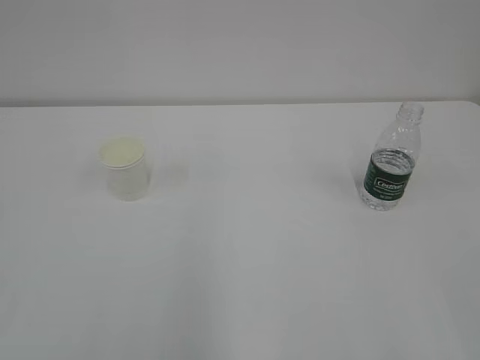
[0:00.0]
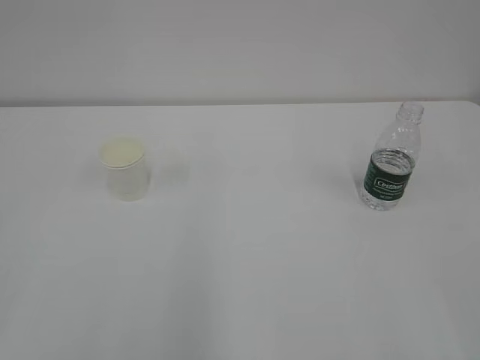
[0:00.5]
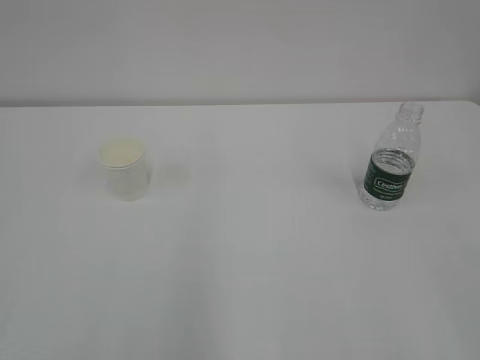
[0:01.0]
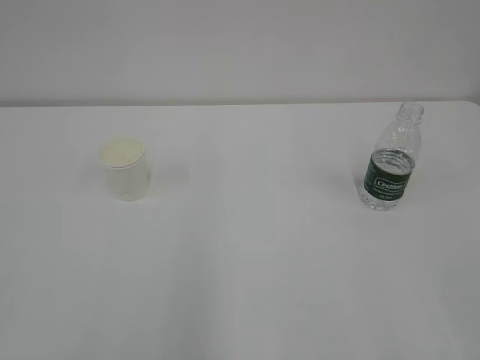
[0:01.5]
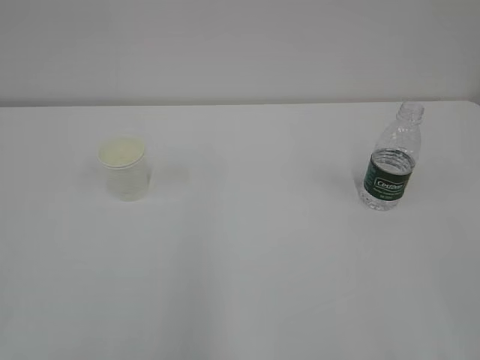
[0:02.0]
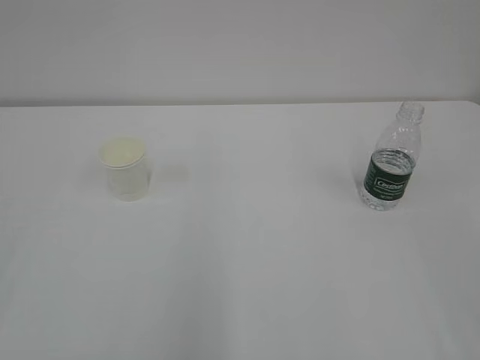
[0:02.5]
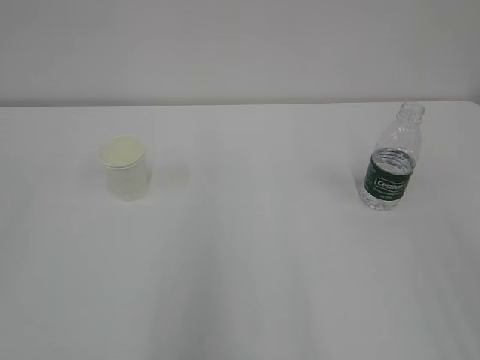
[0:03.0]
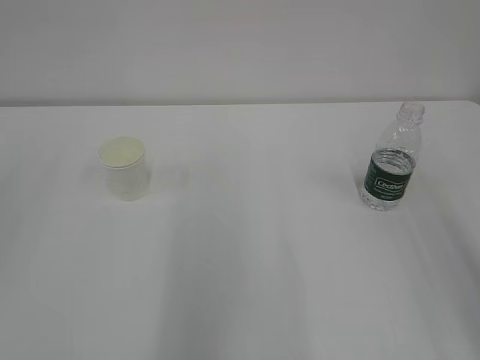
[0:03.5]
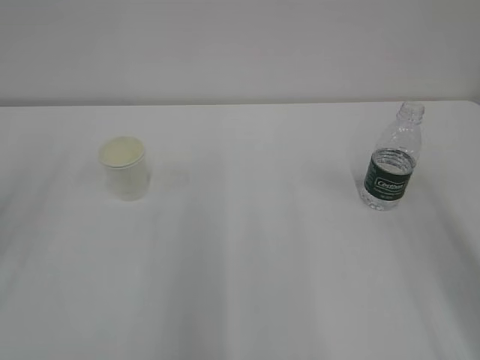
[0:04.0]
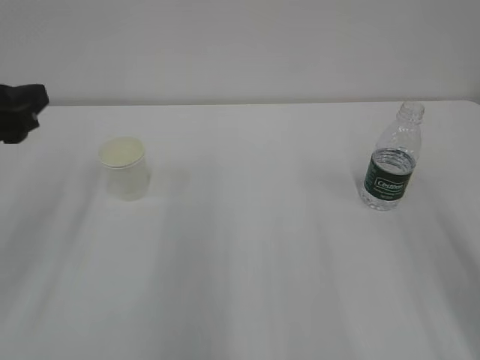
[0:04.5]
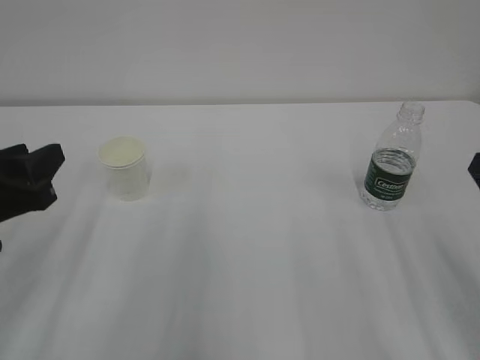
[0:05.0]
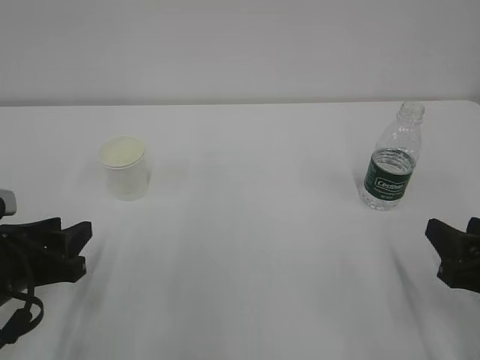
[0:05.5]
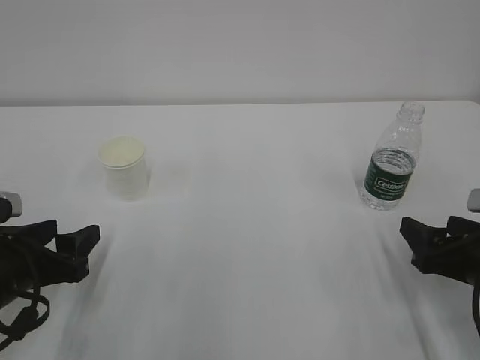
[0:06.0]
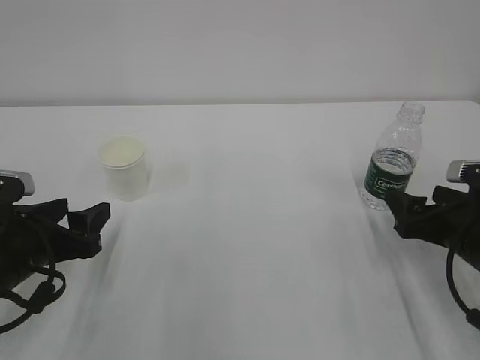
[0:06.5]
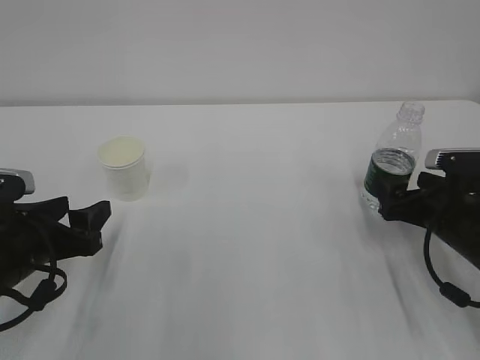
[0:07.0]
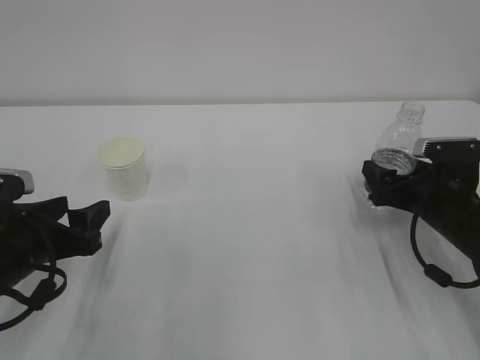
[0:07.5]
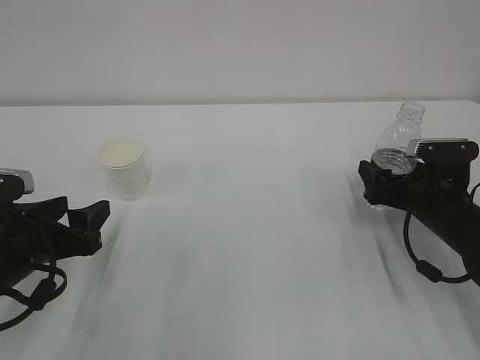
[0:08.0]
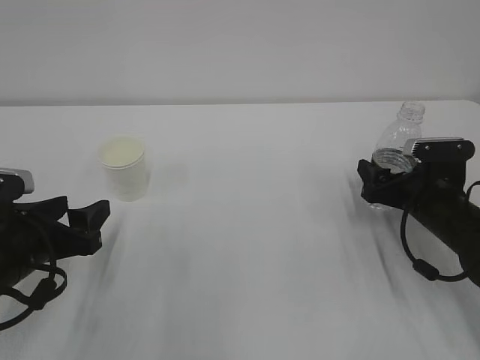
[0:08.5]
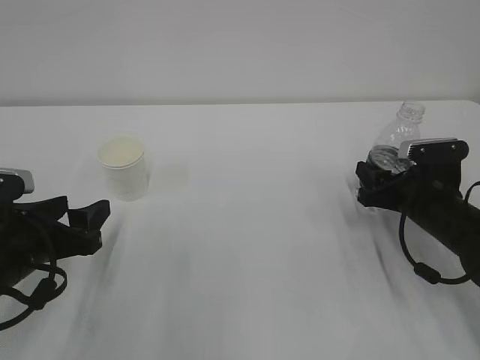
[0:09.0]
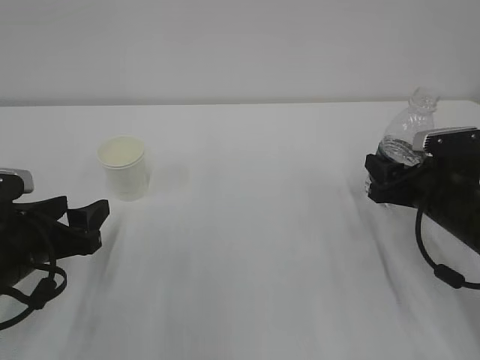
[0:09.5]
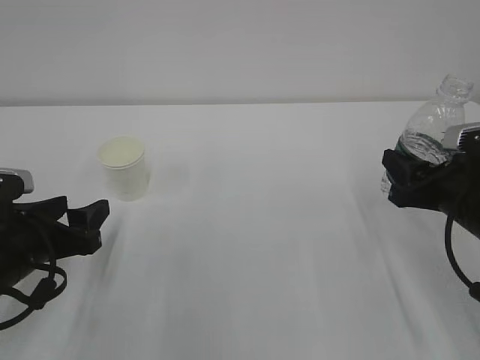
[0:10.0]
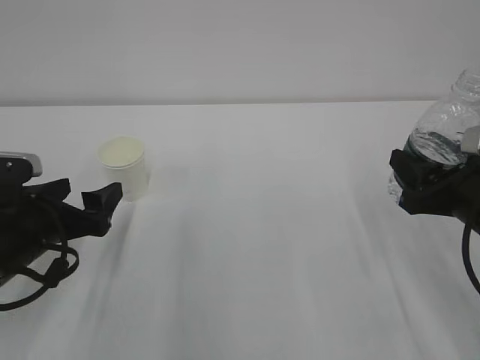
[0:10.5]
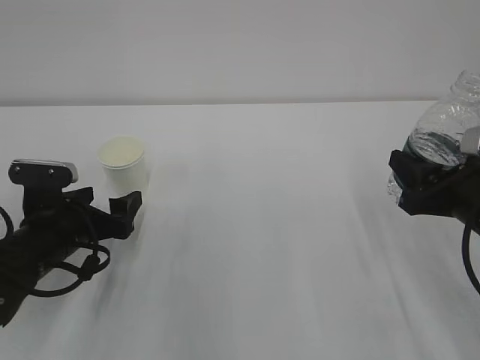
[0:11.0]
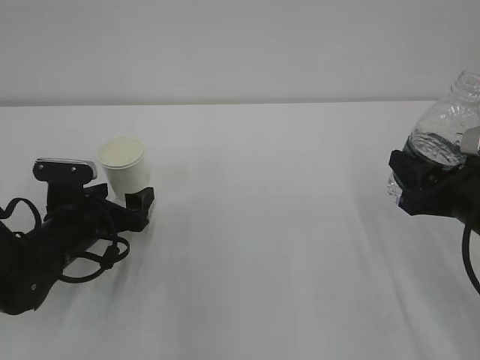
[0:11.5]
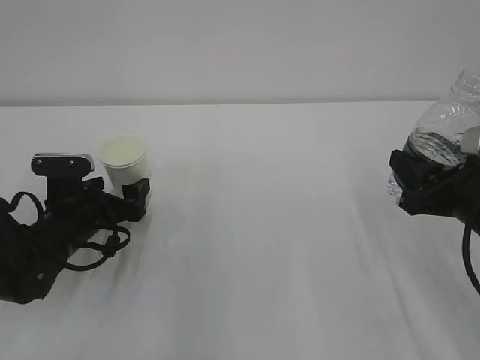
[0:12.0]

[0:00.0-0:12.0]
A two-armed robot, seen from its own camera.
0:04.0 to 0:06.0: The grippers both shift downward by approximately 20 cm. The right gripper opens up.
0:06.0 to 0:08.0: The right gripper travels forward by roughly 10 cm.
0:08.0 to 0:10.0: The right gripper is displaced upward and backward by about 10 cm, and closes up.
0:10.0 to 0:12.0: The left gripper heads forward and downward, covering some 10 cm, and opens.

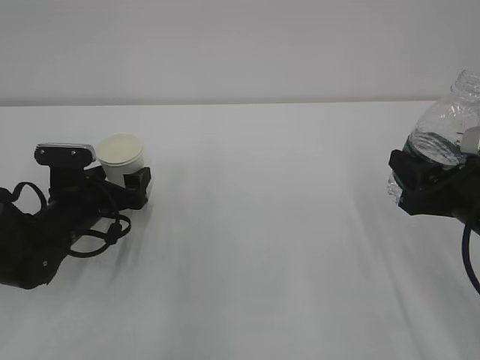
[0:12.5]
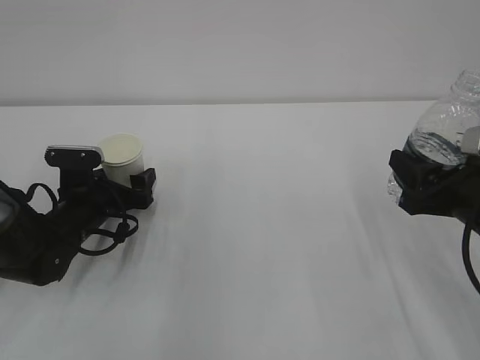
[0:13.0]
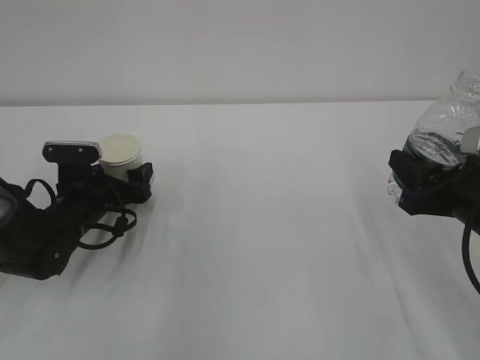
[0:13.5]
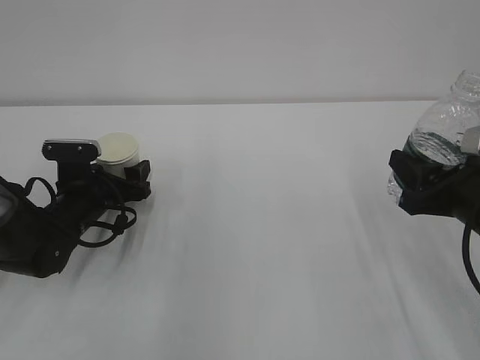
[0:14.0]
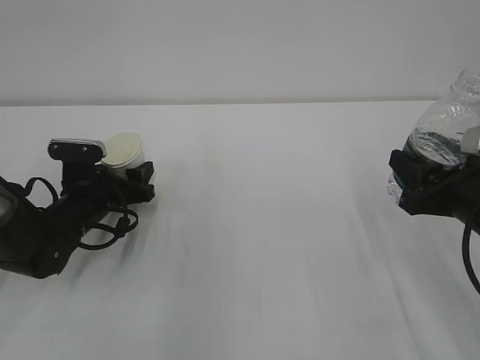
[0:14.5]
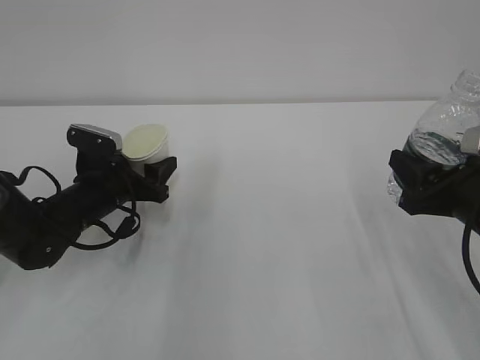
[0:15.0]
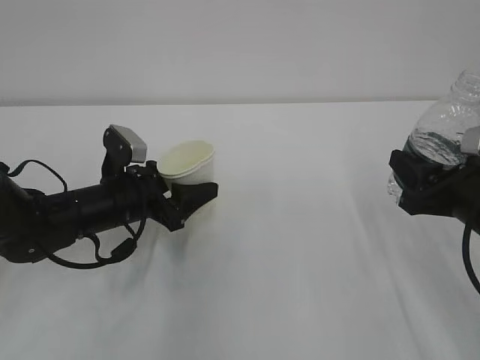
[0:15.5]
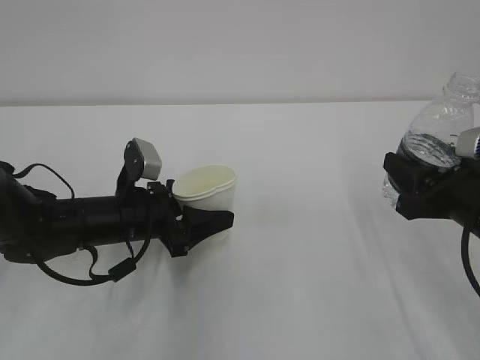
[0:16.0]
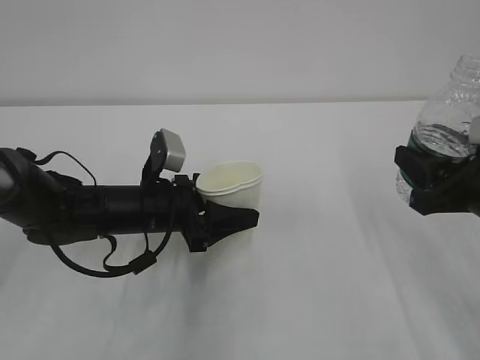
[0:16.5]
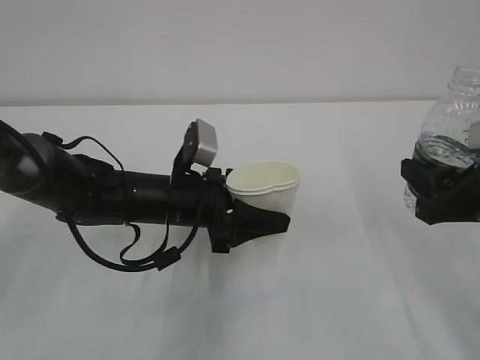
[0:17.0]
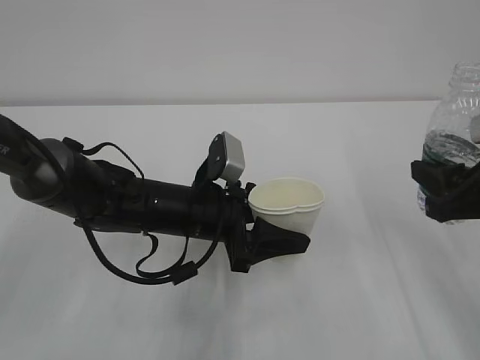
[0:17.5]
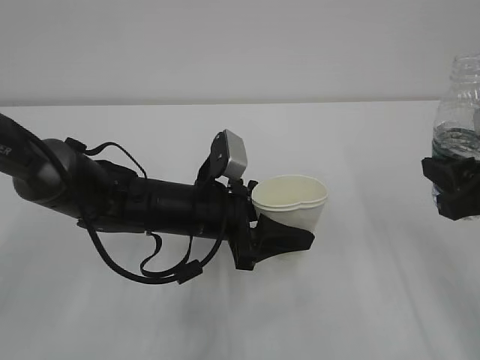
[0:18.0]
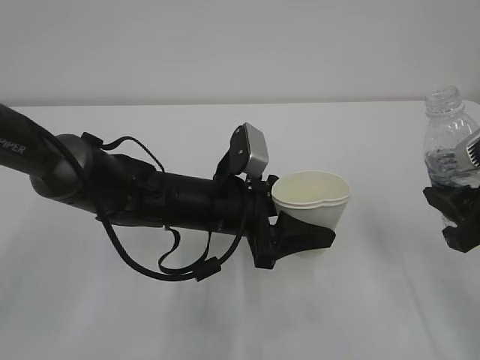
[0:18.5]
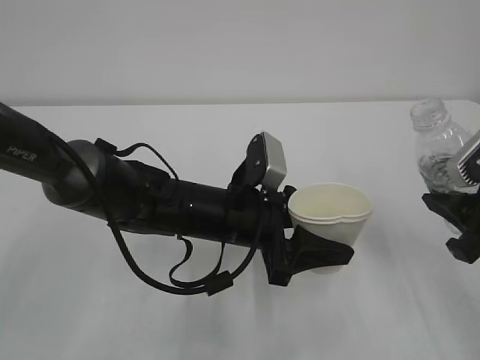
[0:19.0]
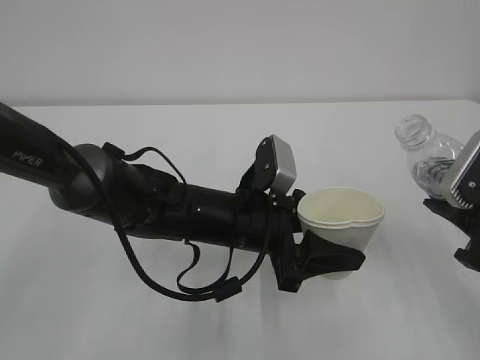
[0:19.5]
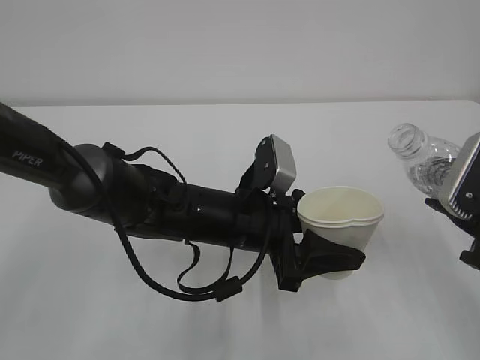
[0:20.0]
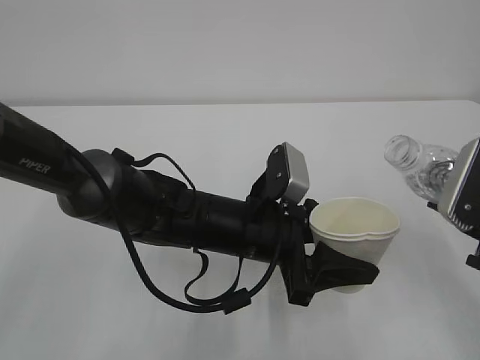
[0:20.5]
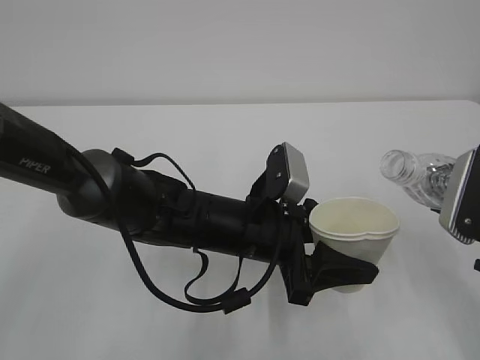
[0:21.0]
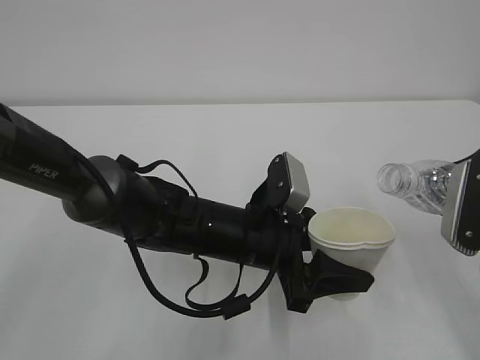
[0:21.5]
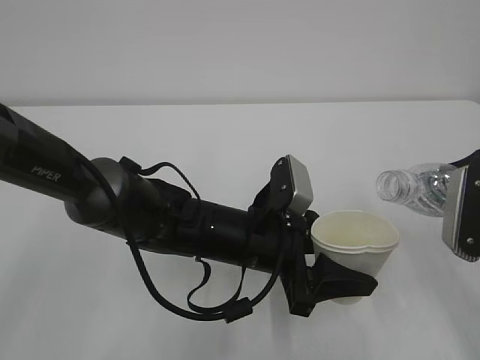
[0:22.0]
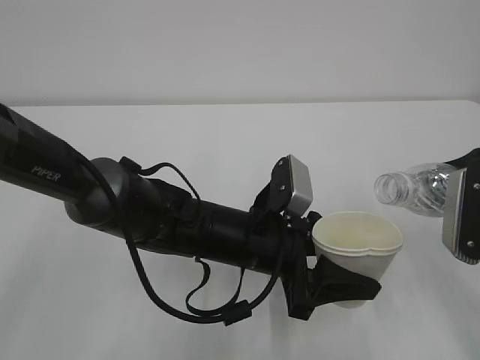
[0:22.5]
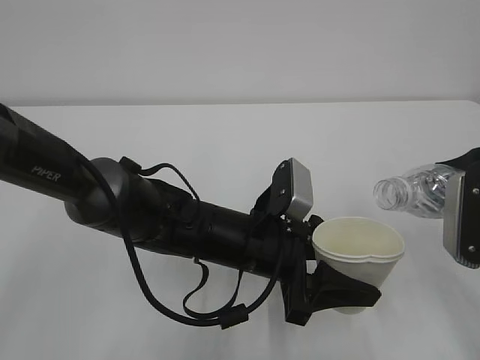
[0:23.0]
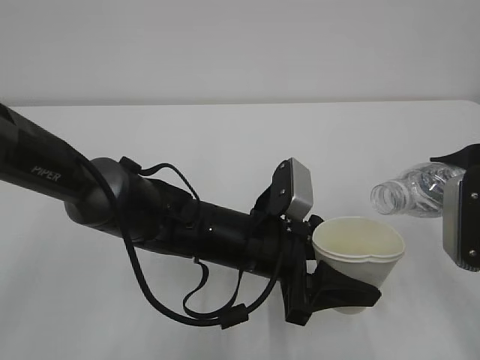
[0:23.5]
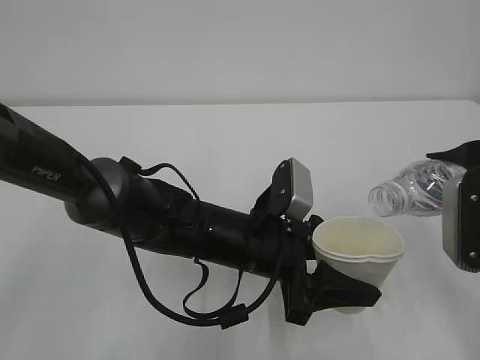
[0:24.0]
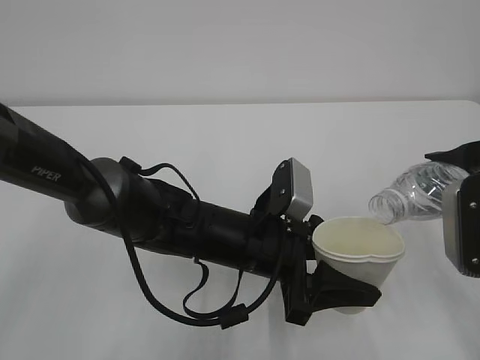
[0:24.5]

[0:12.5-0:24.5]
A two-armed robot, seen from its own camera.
0:12.5 to 0:14.5: The left gripper closes up.
0:14.5 to 0:16.5: The left gripper moves to the right, roughly 10 cm.
0:16.5 to 0:18.5: The left gripper heads to the right, covering approximately 10 cm.
0:20.5 to 0:22.5: The grippers stay close to where they were, moving slightly.
0:22.5 to 0:24.5: There are only small adjustments of the grippers.

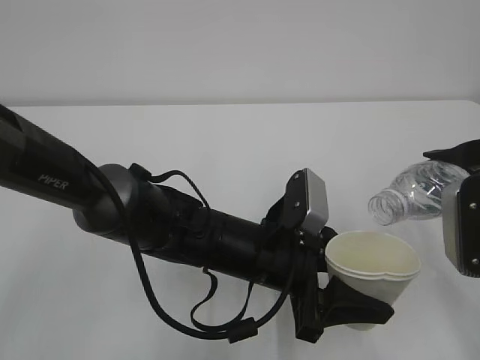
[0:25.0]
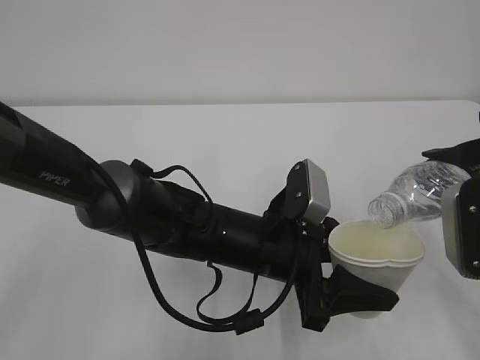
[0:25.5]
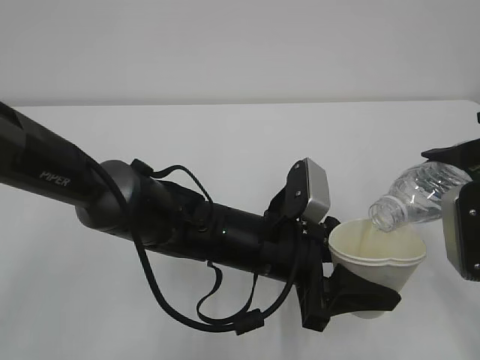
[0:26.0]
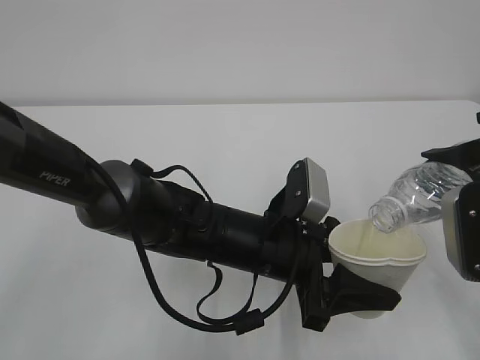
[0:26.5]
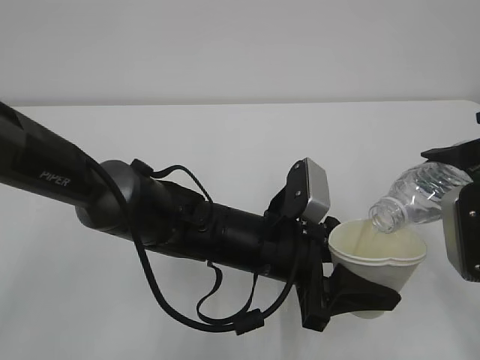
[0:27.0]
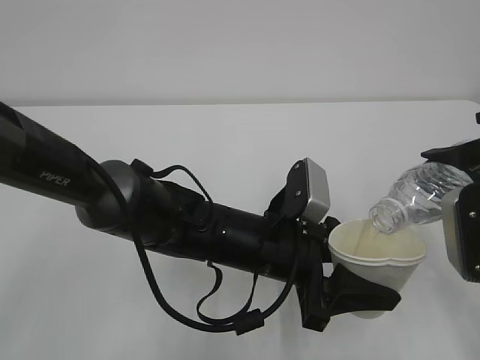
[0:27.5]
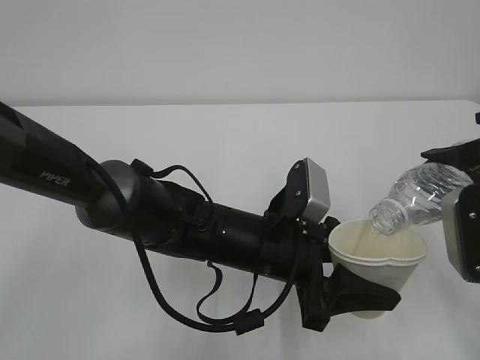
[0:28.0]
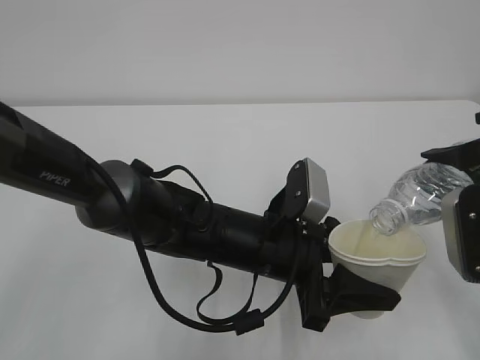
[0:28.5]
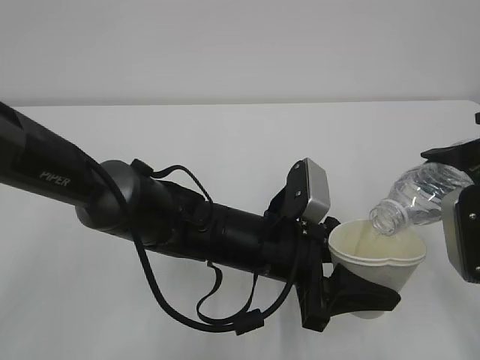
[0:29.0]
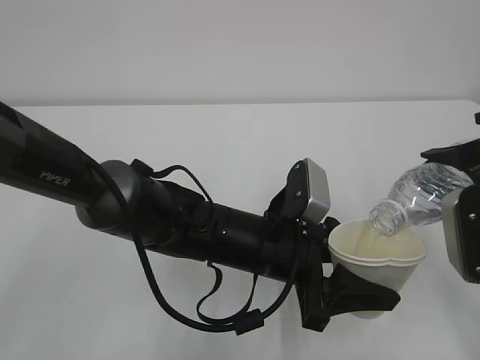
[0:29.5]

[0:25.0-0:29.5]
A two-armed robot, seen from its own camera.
0:25.0 to 0:27.0: The two grippers keep their place.
0:27.0 to 0:29.5: The two grippers keep their place.
